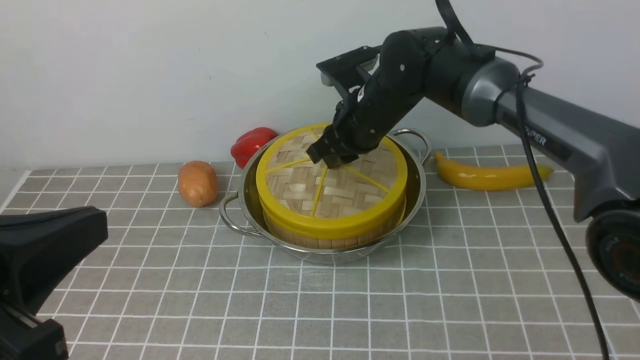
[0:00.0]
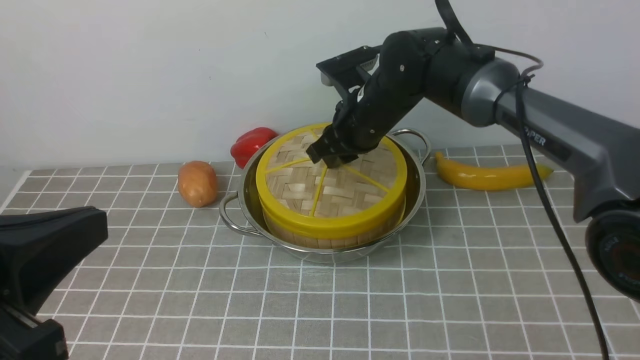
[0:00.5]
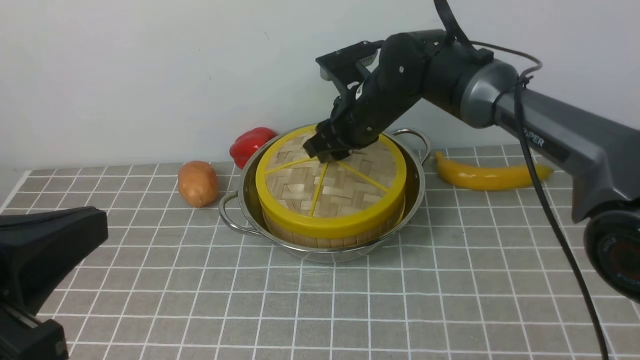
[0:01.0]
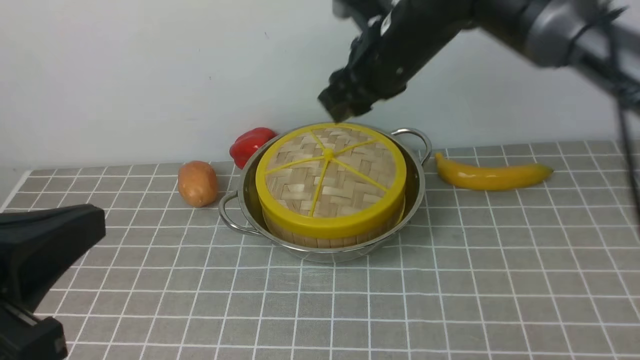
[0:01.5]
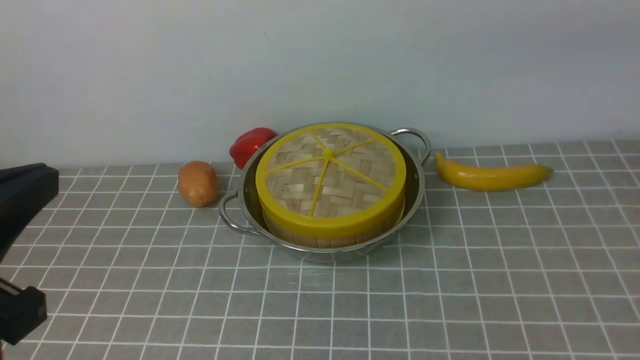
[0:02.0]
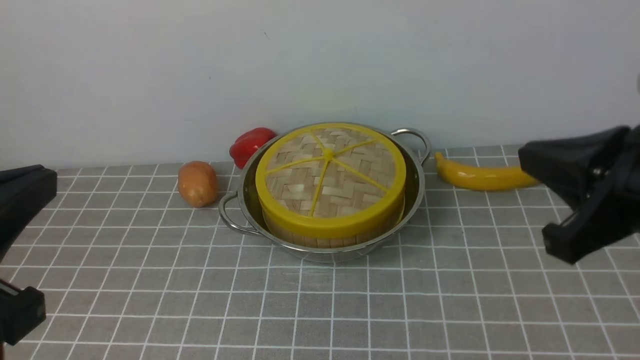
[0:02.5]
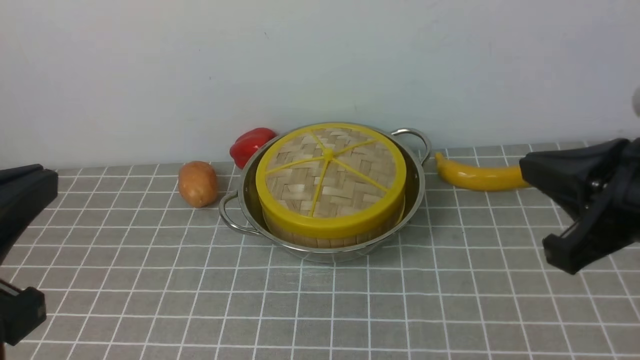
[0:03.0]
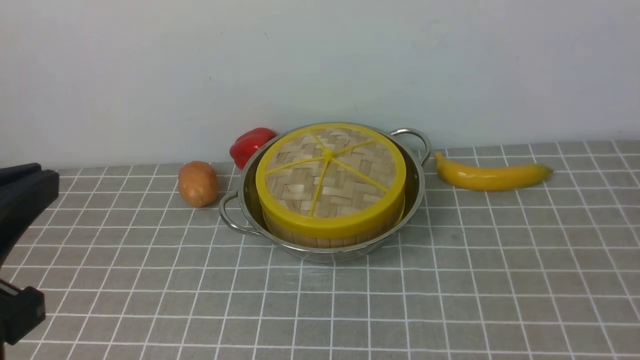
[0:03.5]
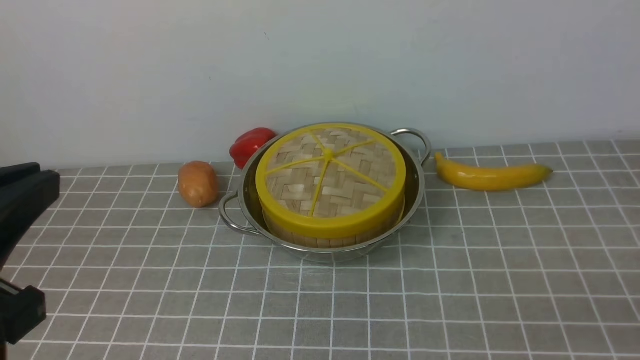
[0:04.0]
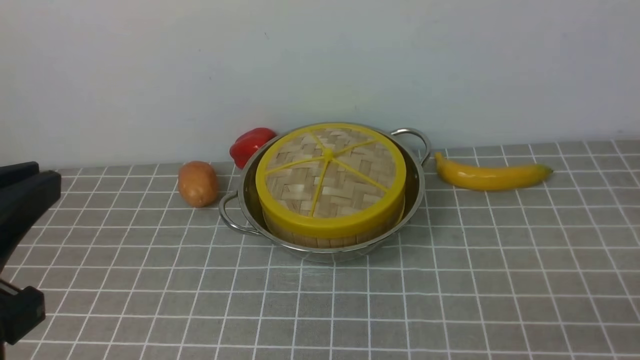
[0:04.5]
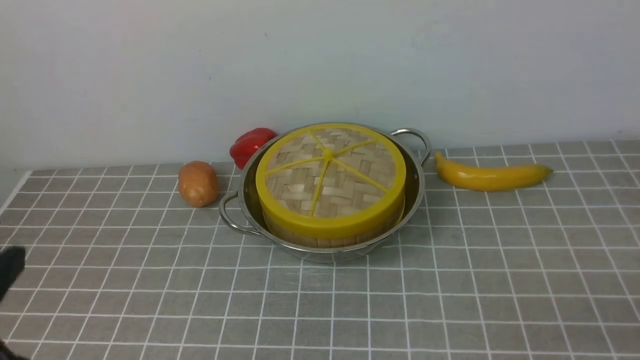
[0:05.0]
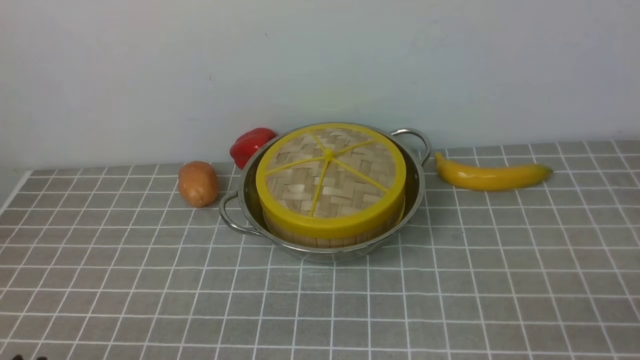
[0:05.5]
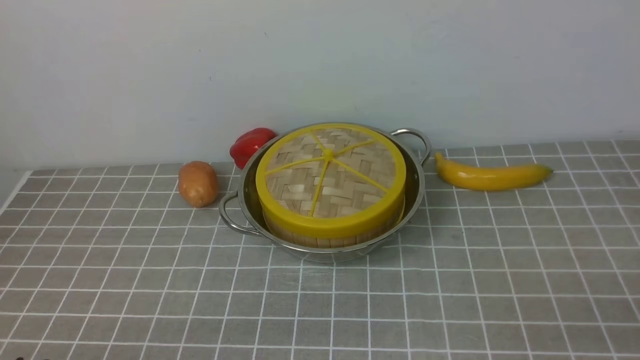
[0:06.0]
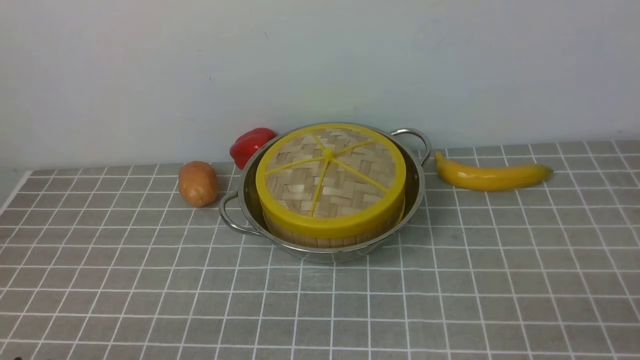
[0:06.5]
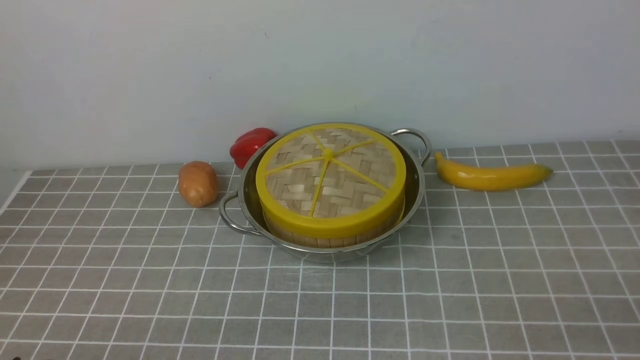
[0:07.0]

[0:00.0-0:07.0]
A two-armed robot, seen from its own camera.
Task of the whole recording: place the steamer in the pot on the grey tablecloth, and put the lid on the steamer.
0:00.0 to 0:02.0: The right gripper travels upward, backward and to the right by some 30 cm, and opens, then closes again.
0:02.0 to 0:03.5: The right gripper shifts about 30 cm downward, backward and to the right.
